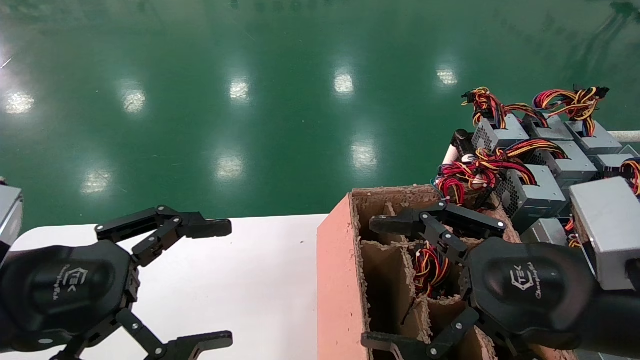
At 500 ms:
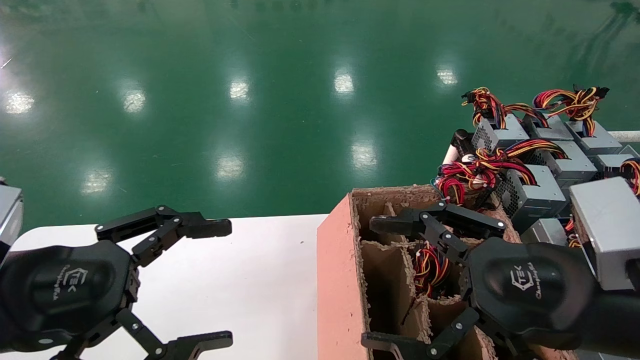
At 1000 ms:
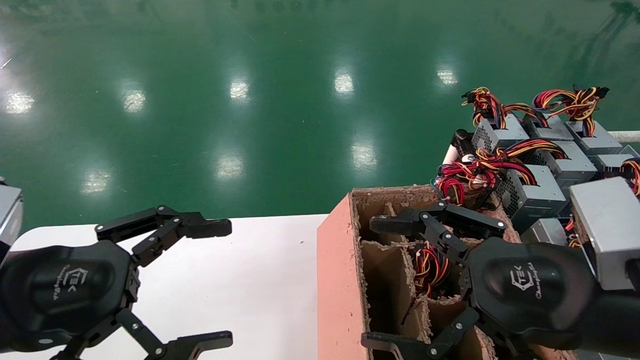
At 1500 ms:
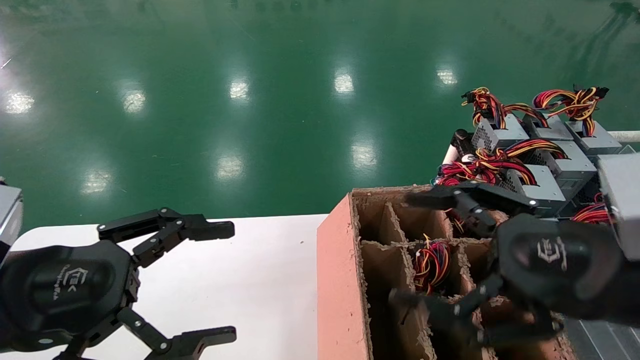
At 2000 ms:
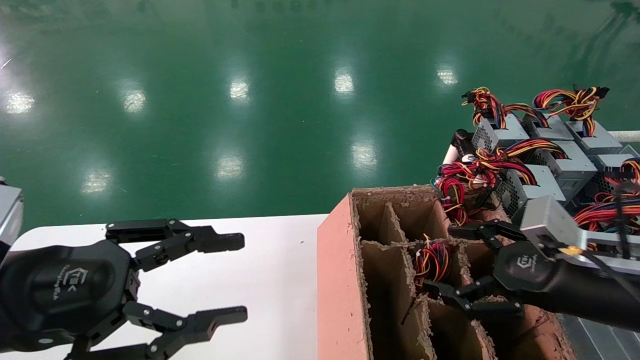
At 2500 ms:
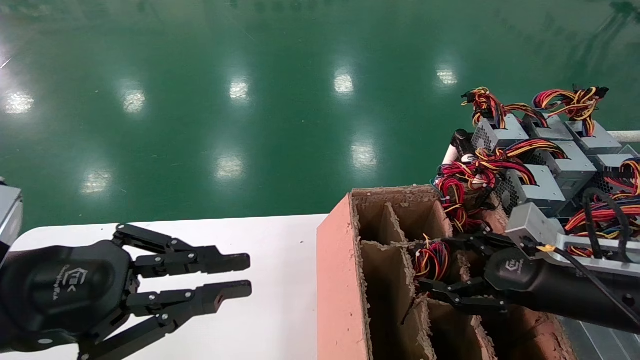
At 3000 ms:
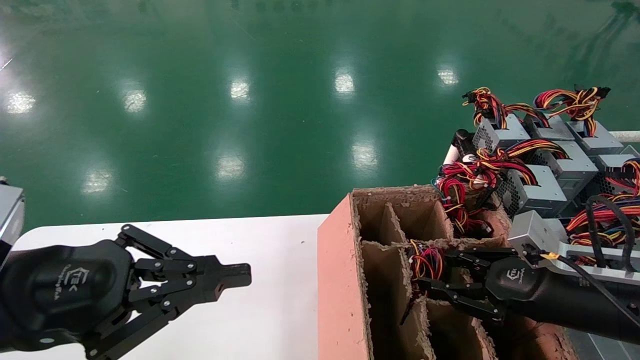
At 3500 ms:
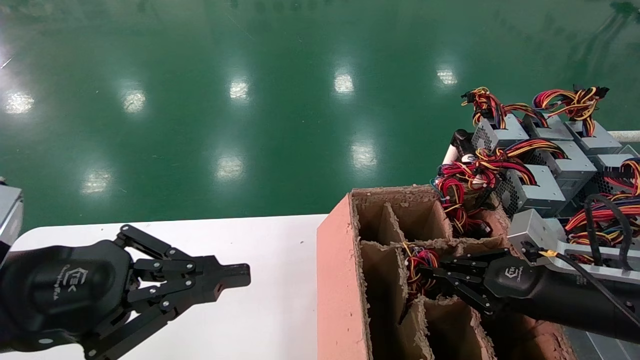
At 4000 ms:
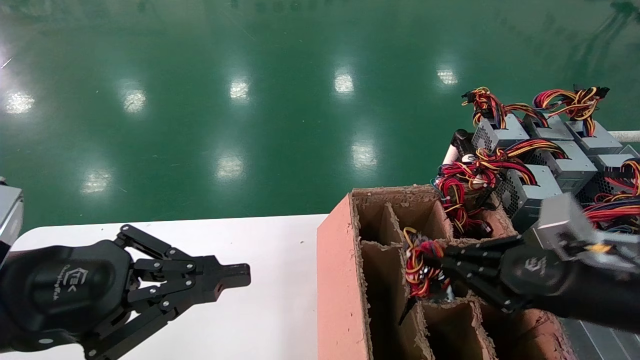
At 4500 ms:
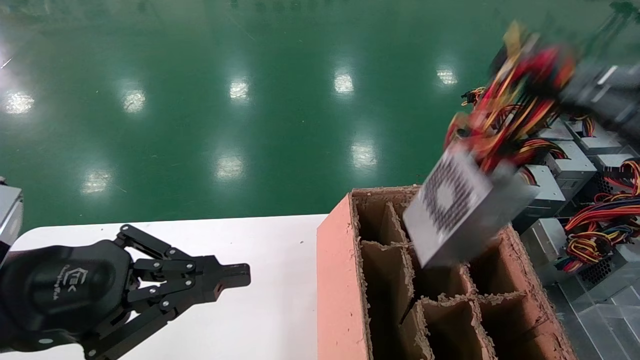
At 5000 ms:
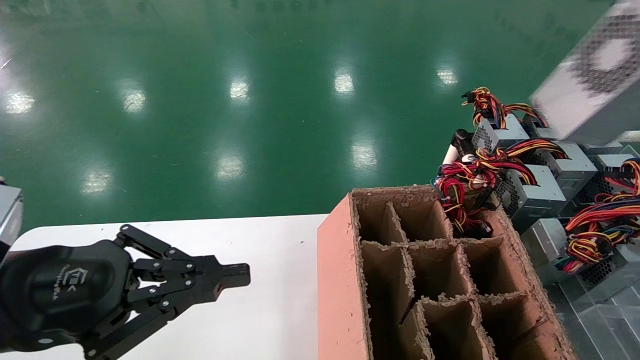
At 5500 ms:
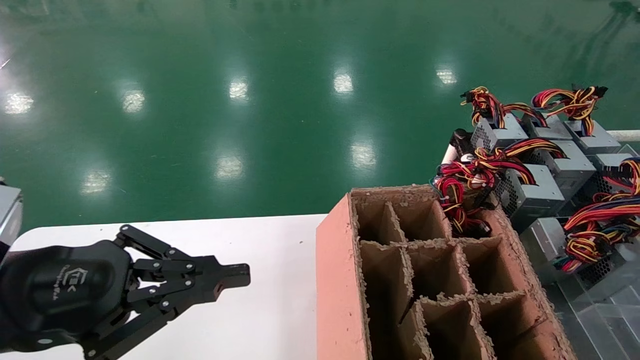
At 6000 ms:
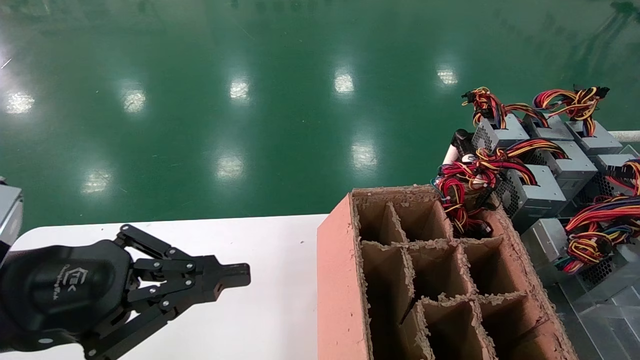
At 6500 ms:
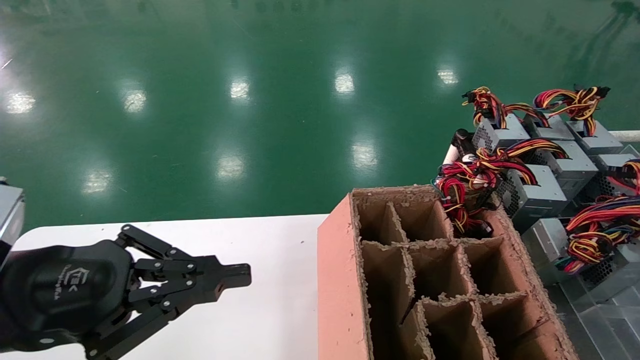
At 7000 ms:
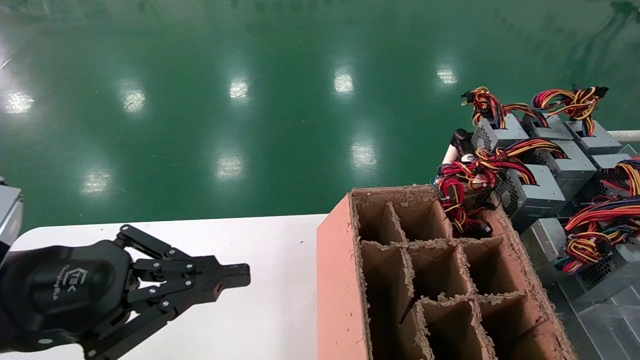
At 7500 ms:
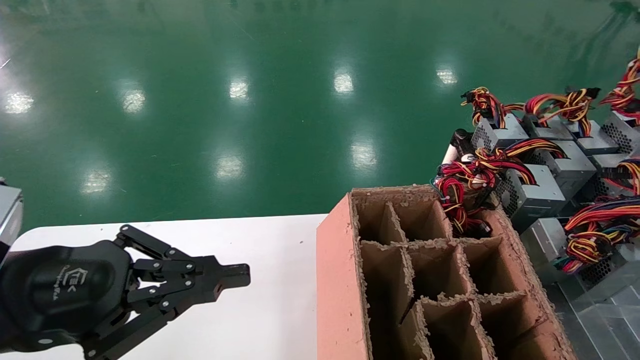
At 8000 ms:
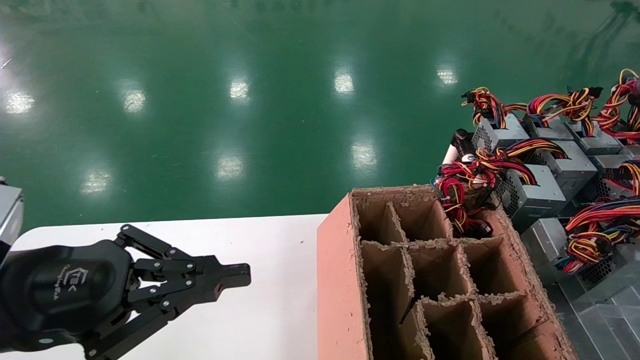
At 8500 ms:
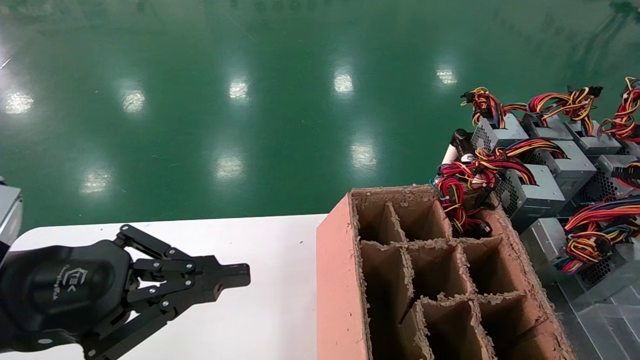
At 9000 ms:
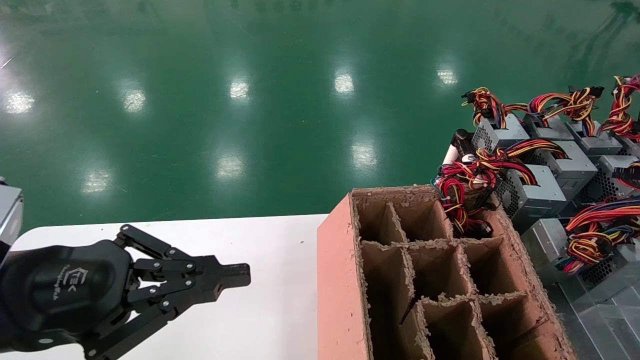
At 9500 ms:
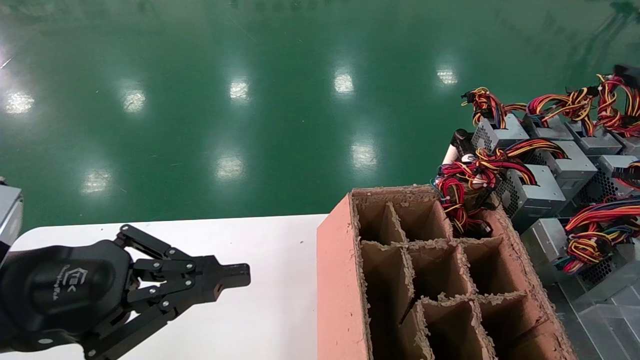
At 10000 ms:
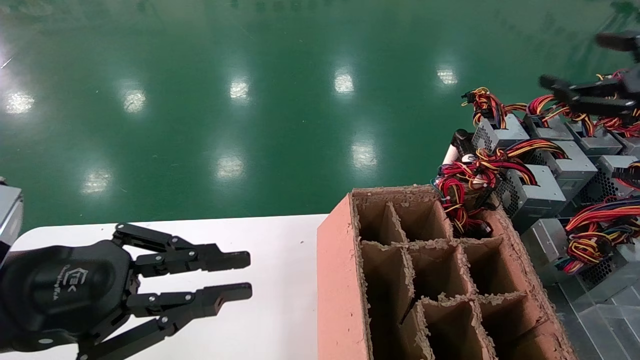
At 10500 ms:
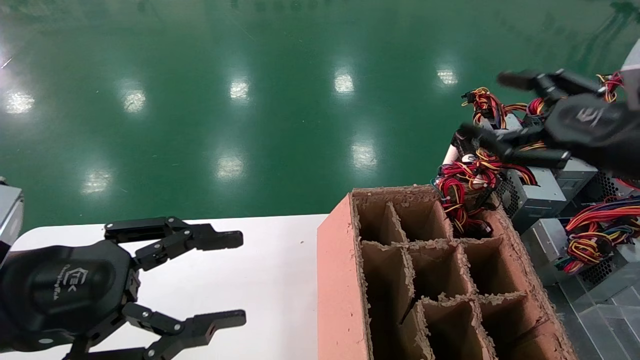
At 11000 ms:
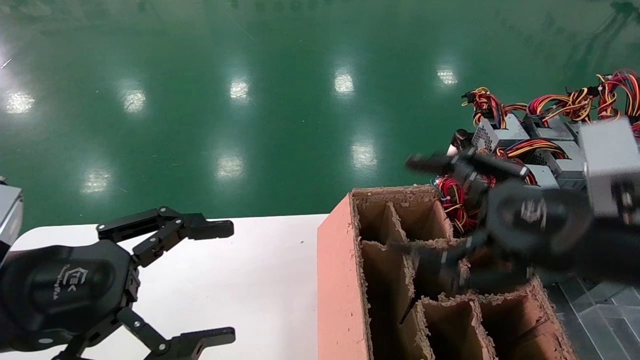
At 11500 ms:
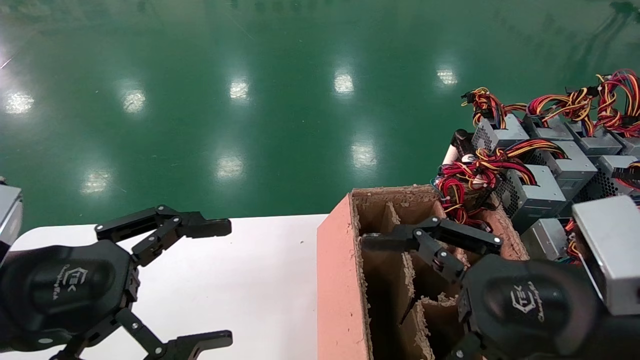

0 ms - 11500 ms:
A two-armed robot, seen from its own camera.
Step, 2000 ms - 3500 ms: Grab the main unit power supply from the containment box.
Step, 4000 ms - 8500 ms: Place the main unit power supply in the designated area.
0 ms - 2000 ms: The right gripper goes about 10 cm to the right and forward.
2000 ms - 4000 ms: The left gripper closes up. The right gripper closes up.
4000 ms - 6000 ms: The right gripper moves to the right and upward, some 30 cm.
6000 ms - 7500 ms: The right gripper travels forward by about 15 cm.
7500 ms - 9500 ms: The right gripper opens up.
9500 ms - 11500 ms: The right gripper goes some 35 cm to the left, backward and downward. Meanwhile the left gripper opens up.

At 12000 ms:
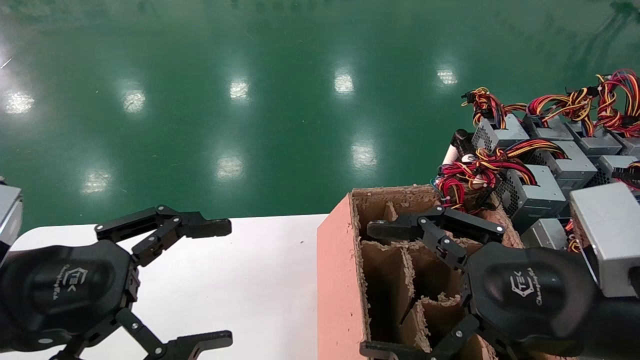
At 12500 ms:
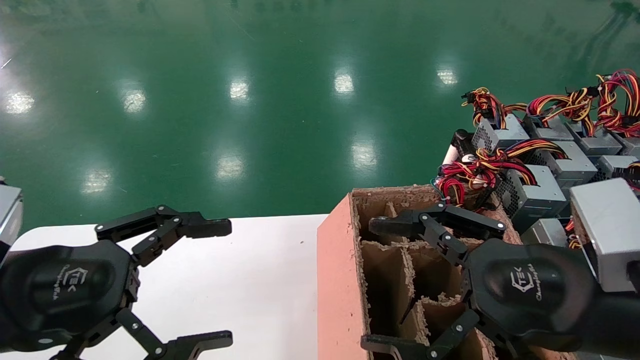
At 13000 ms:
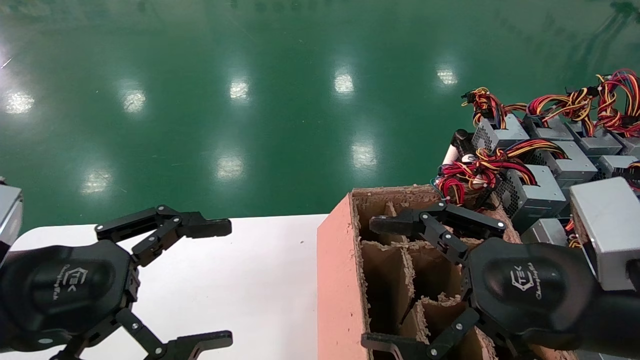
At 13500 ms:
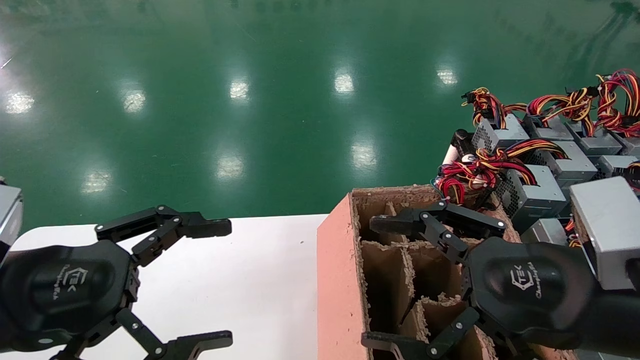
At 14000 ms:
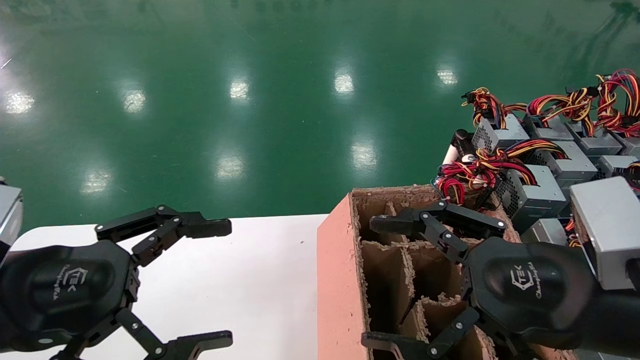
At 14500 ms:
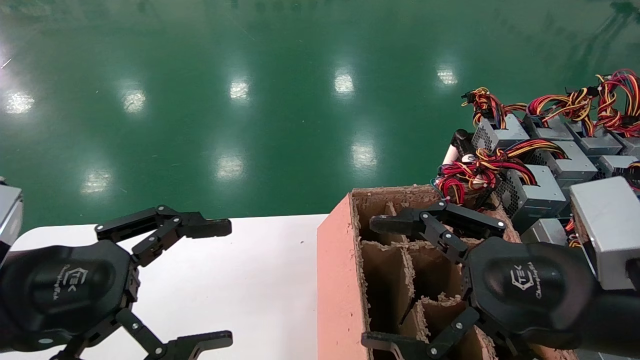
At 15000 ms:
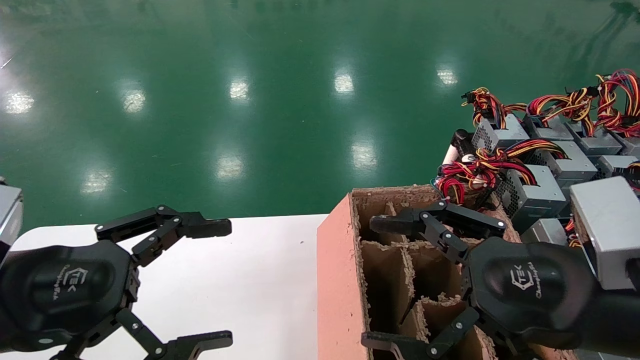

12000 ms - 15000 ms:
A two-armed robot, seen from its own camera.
12000 ms - 15000 ms: Neither gripper changes place.
